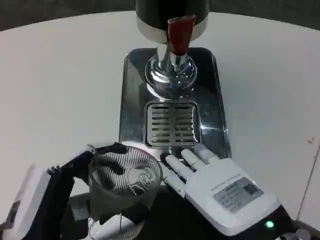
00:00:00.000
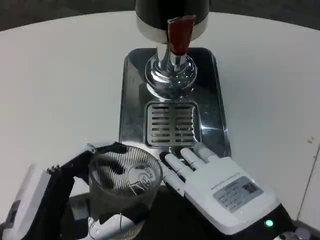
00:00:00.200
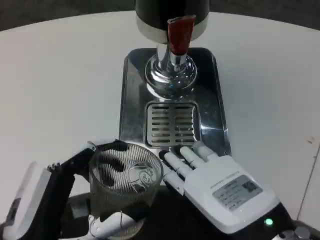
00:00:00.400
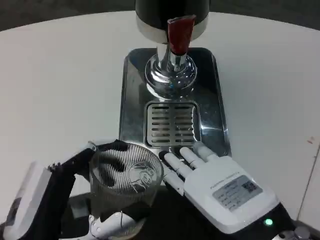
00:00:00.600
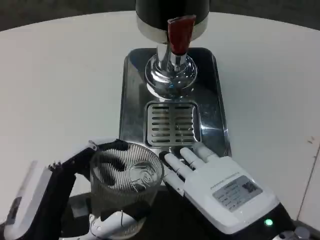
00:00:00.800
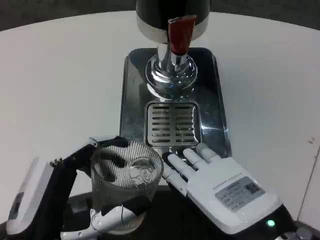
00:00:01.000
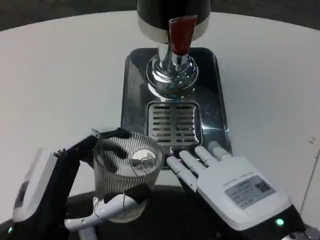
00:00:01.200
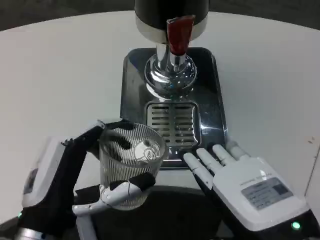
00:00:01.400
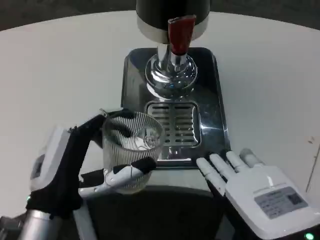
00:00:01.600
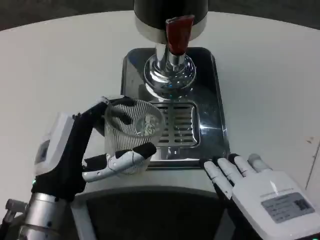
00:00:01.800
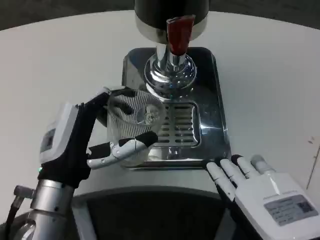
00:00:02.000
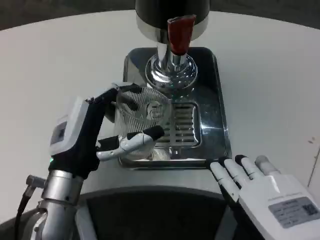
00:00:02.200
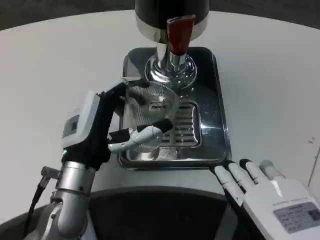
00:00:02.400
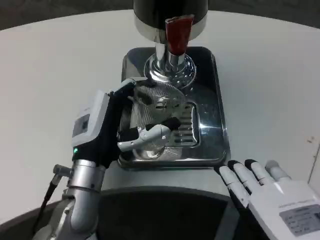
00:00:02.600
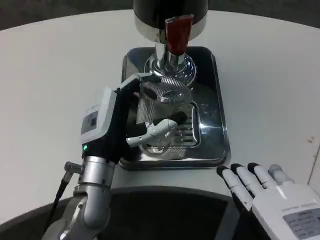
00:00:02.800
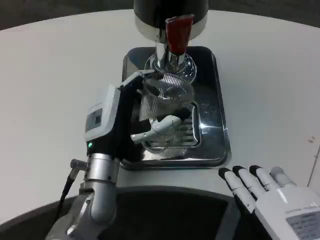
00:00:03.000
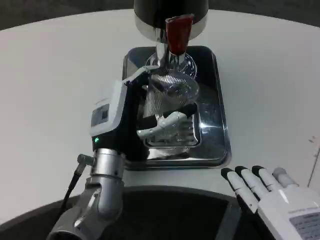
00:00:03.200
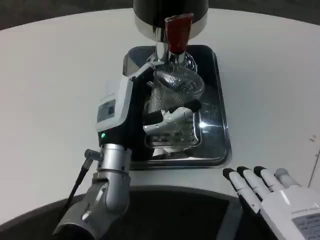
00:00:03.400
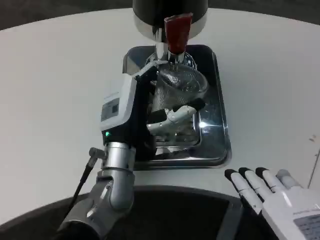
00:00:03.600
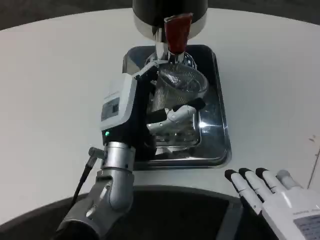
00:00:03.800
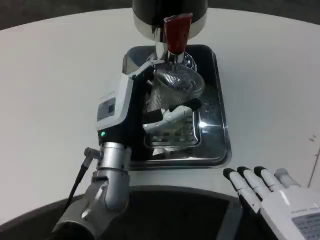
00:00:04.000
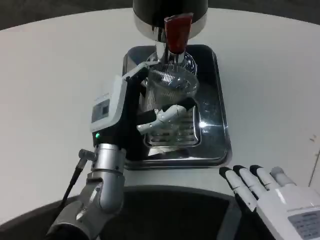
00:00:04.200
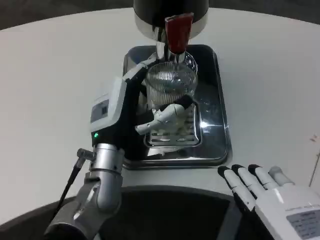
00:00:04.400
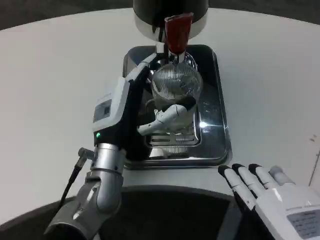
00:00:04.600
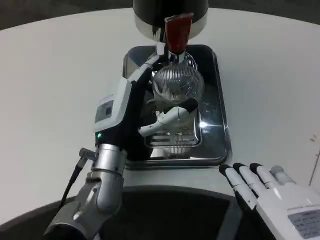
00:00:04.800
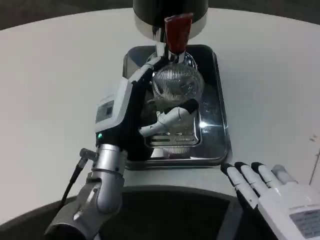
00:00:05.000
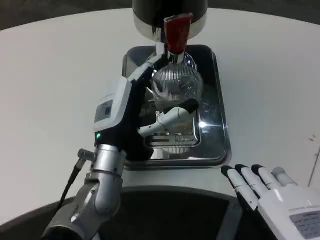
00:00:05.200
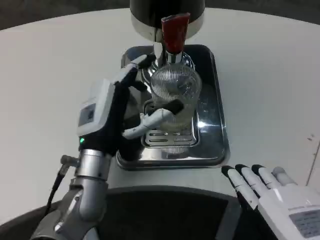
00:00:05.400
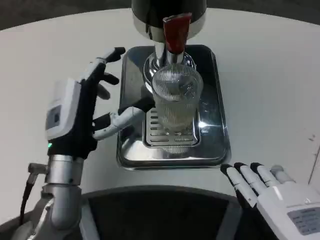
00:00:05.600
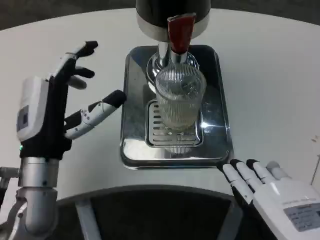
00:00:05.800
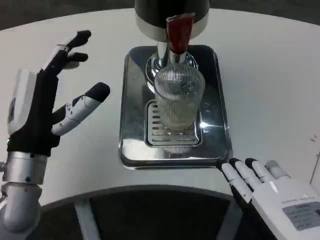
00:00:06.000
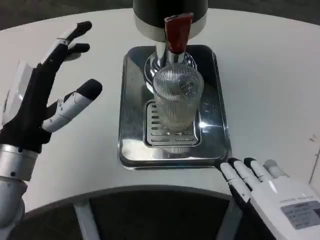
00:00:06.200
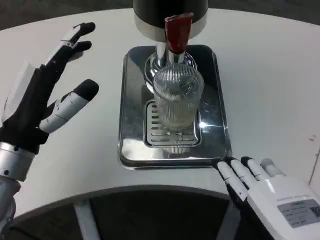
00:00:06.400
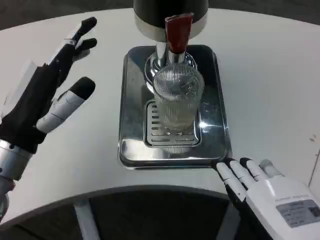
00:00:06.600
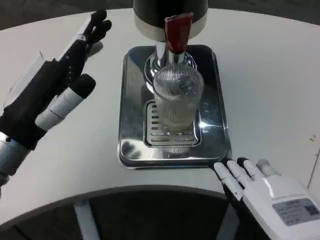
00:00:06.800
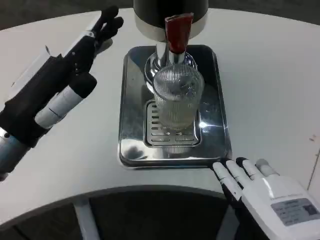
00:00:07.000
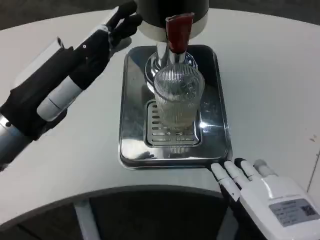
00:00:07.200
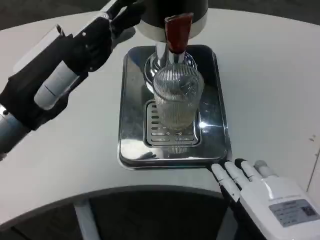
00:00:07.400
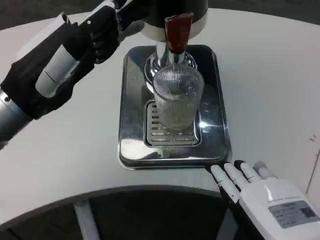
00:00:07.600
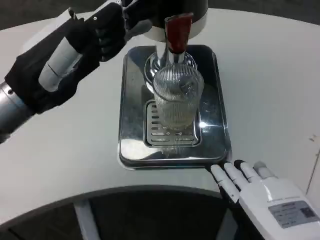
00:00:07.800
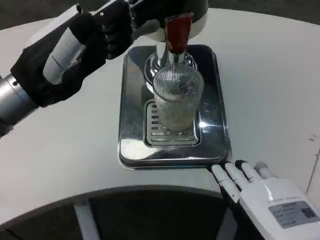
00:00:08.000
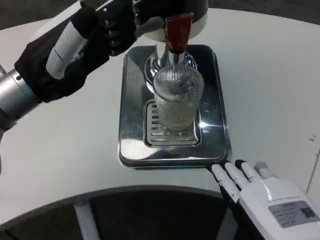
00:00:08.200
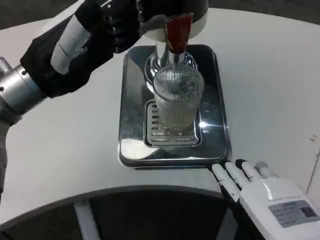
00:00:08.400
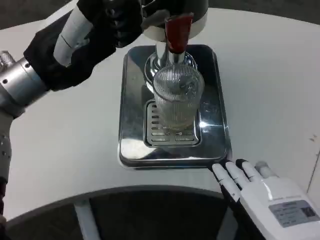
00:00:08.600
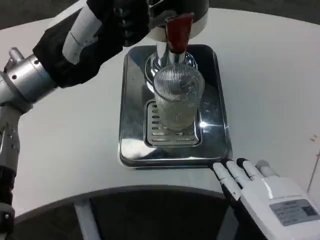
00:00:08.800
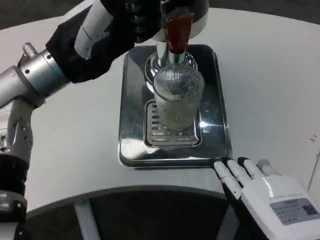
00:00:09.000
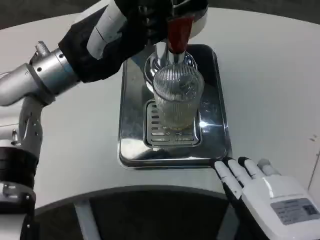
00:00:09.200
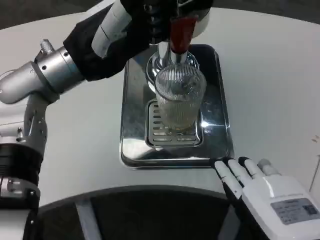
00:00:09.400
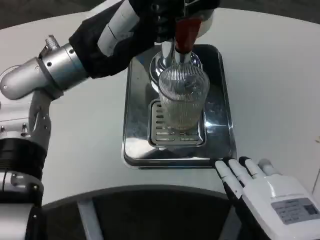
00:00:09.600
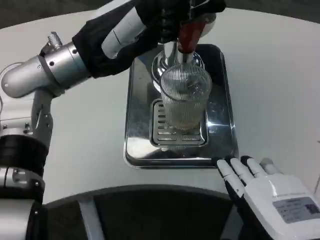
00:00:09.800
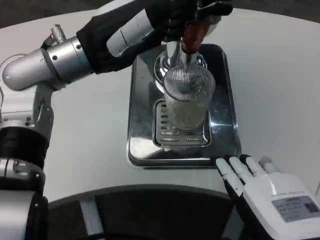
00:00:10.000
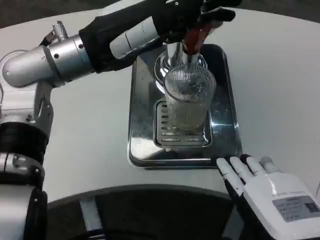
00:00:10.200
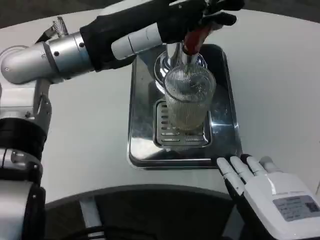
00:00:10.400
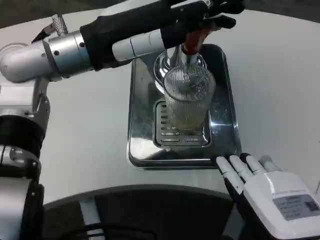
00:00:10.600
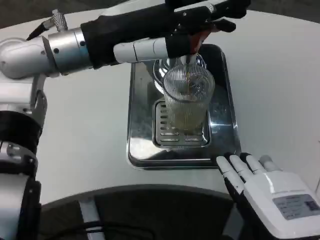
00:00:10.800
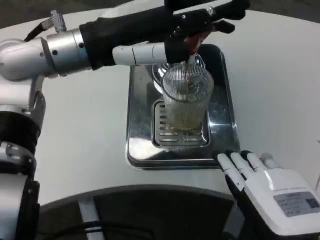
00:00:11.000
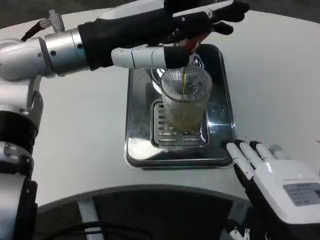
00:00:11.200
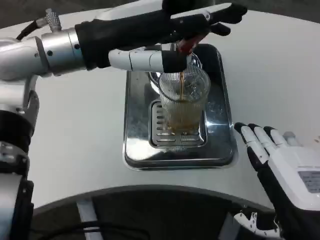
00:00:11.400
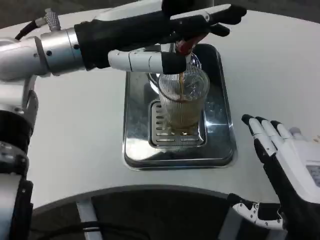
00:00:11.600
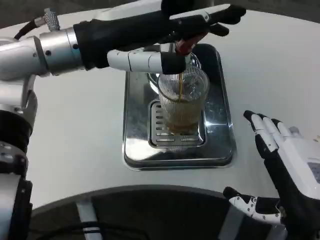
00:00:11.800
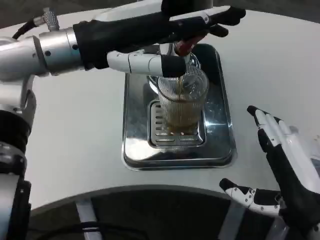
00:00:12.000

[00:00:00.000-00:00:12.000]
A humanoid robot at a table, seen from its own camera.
Task of the whole recording: Grasp the cup under the faucet to collect the drink, then remove the cup.
00:00:00.000 to 00:00:01.600: The left hand moves forward, roughly 10 cm.
00:00:01.600 to 00:00:03.000: The left hand travels forward and to the right by about 10 cm.
00:00:03.000 to 00:00:04.400: There are only small adjustments of the hands.
00:00:04.400 to 00:00:06.000: The left hand shifts about 10 cm to the left and backward.
00:00:06.000 to 00:00:07.600: The left hand goes approximately 10 cm upward.
00:00:07.600 to 00:00:09.000: The left hand moves forward, approximately 5 cm.
00:00:10.400 to 00:00:12.000: The right hand changes place by approximately 5 cm.

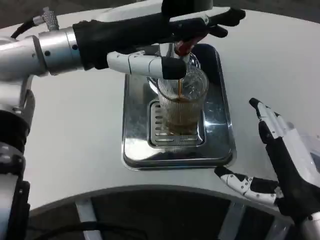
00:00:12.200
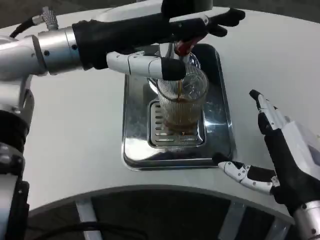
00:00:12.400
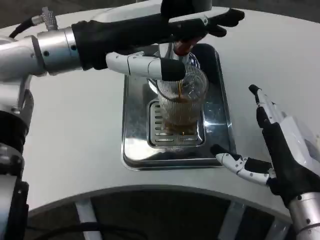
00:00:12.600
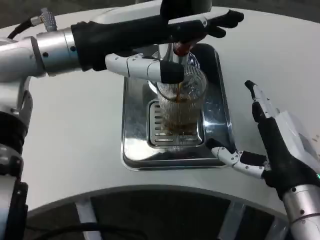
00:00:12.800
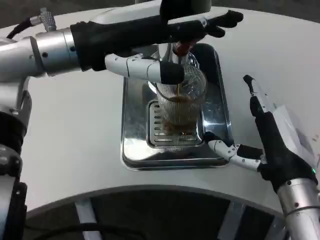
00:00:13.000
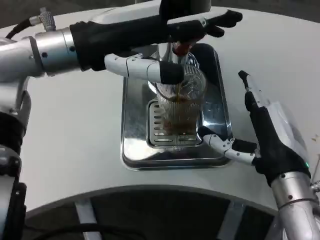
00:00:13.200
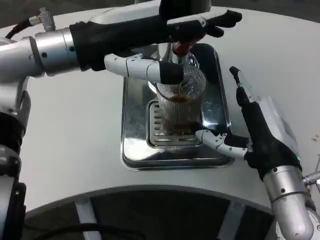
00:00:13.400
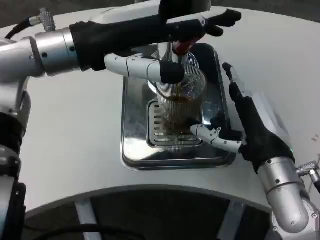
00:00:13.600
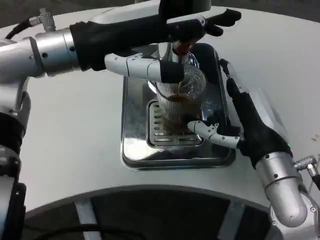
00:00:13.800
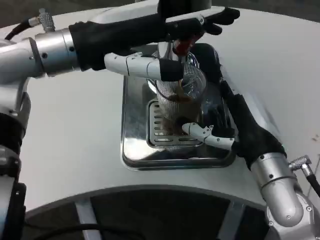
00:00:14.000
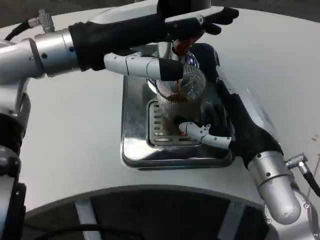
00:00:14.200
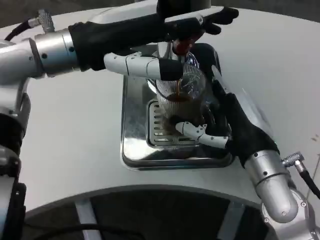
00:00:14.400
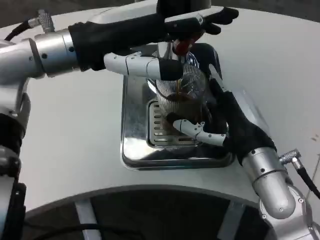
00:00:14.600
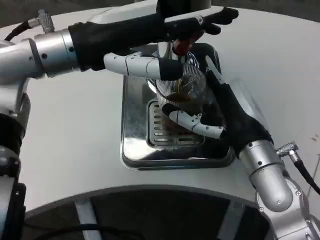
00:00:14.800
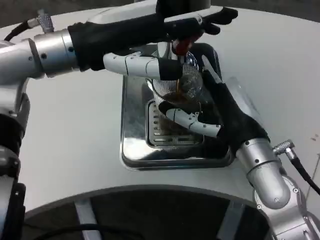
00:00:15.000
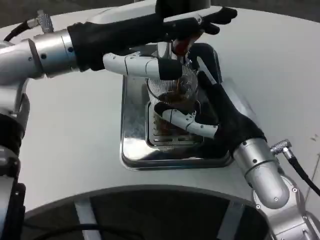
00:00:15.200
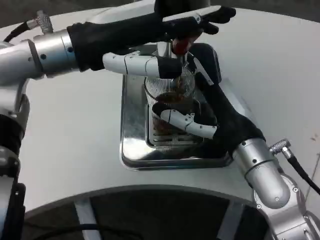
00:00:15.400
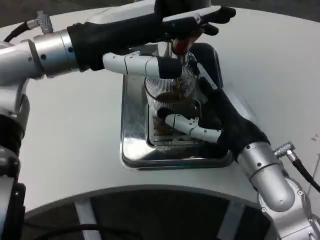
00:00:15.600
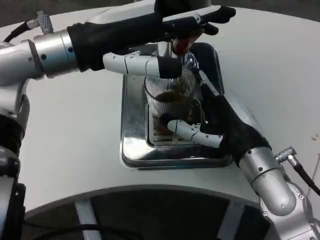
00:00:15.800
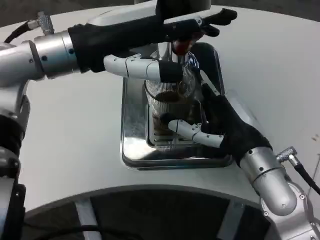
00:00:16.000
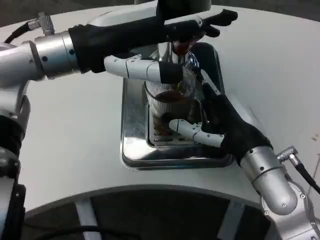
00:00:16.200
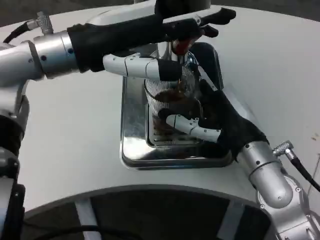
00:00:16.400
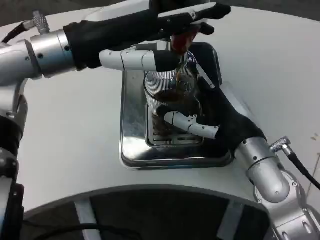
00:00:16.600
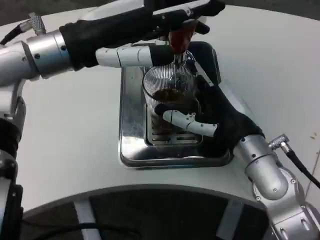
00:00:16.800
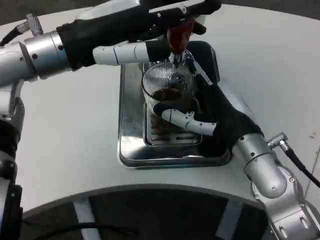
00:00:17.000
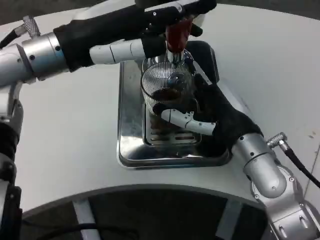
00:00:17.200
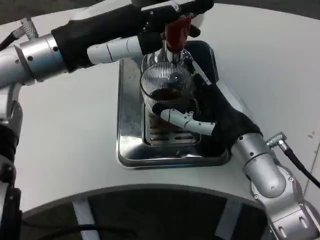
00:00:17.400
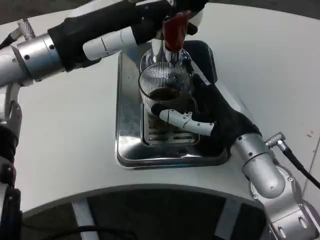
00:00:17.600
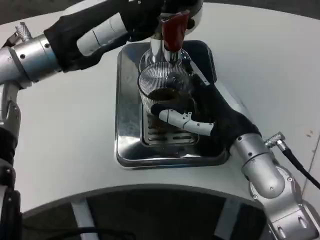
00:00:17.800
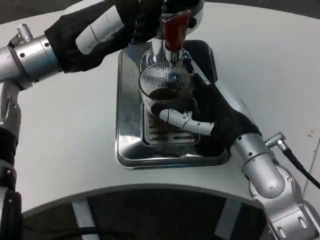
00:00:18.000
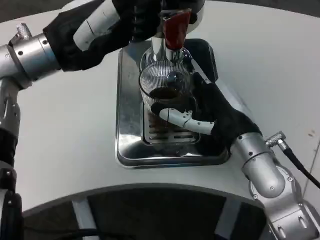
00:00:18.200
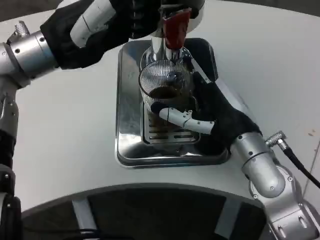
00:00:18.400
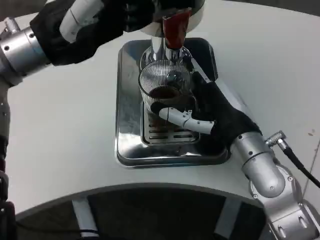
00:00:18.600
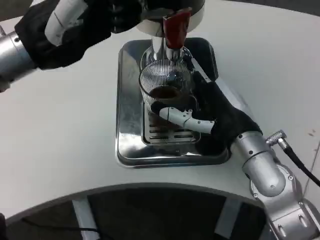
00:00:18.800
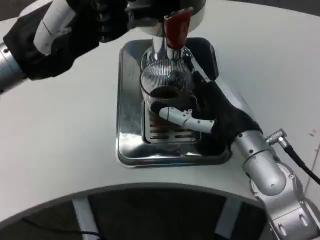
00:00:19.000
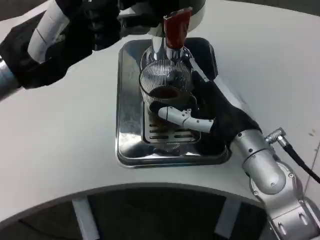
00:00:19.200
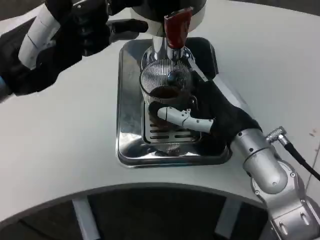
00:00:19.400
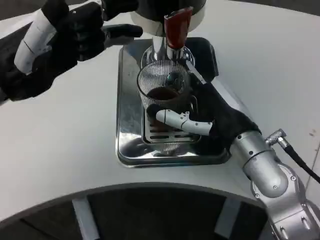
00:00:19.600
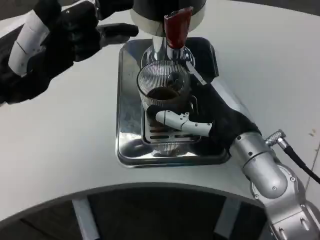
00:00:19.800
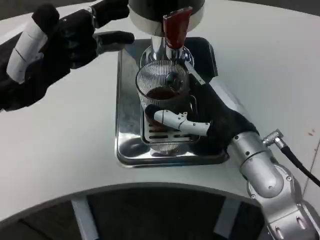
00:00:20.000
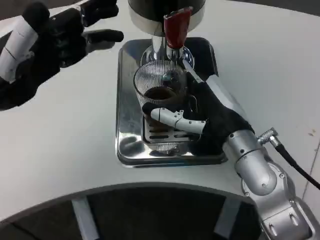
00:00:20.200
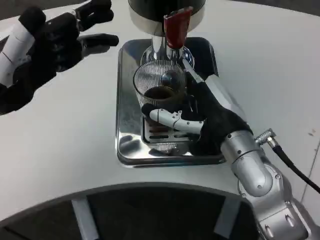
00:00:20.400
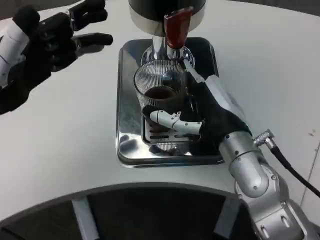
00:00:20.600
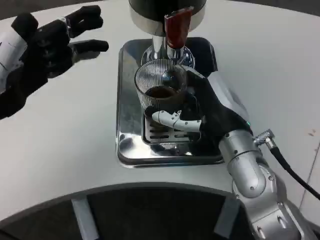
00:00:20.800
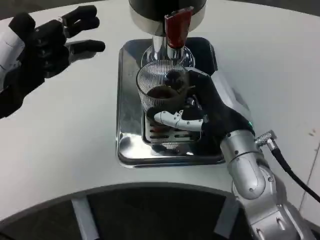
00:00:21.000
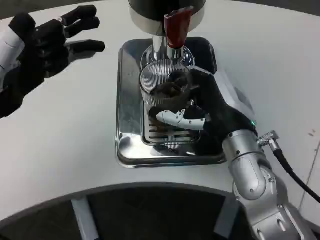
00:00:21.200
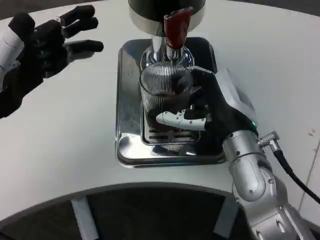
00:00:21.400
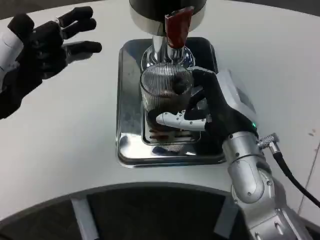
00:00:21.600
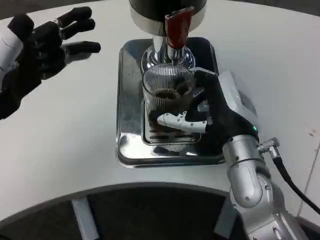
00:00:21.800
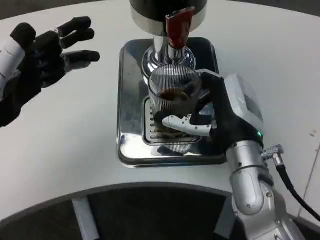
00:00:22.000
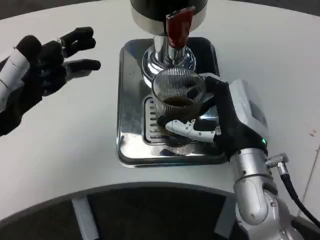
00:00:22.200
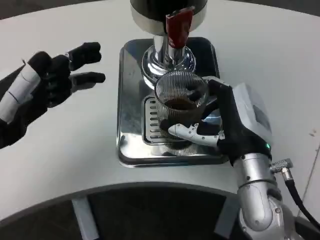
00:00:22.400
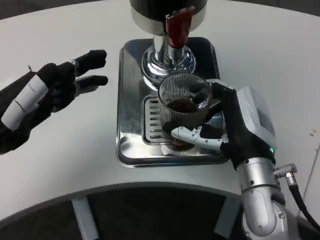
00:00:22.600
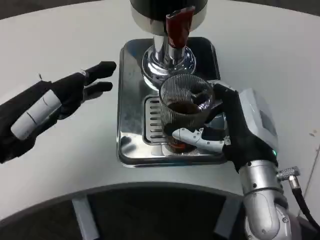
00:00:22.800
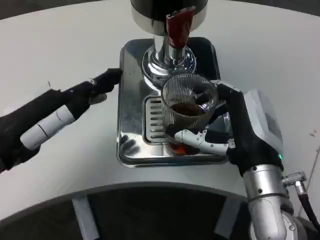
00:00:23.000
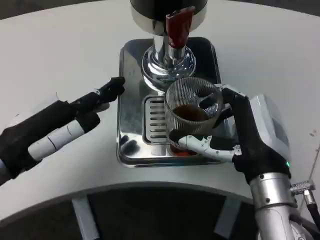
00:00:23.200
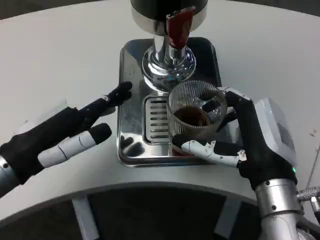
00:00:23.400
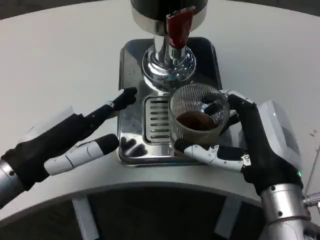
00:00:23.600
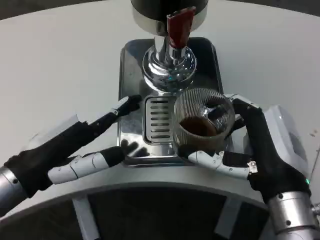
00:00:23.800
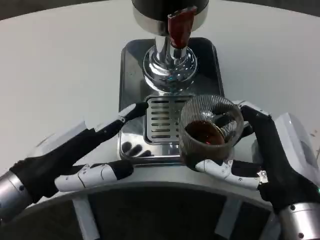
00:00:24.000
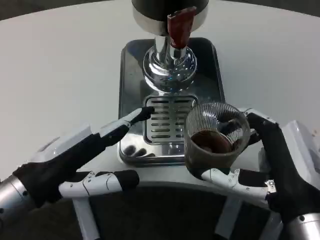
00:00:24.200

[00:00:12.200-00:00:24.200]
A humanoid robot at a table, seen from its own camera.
Task of the whole recording: Grasp the cup under the faucet to collect the drink, then remove the cup.
00:00:12.200 to 00:00:13.800: The right hand shifts approximately 10 cm forward.
00:00:13.800 to 00:00:15.200: The hands stay close to where they were, moving slightly.
00:00:15.200 to 00:00:16.600: The two hands keep their place.
00:00:18.200 to 00:00:19.800: The left hand goes about 10 cm backward and to the left.
00:00:22.600 to 00:00:24.200: The left hand heads to the right, covering some 5 cm. Meanwhile the right hand shifts roughly 10 cm backward.
